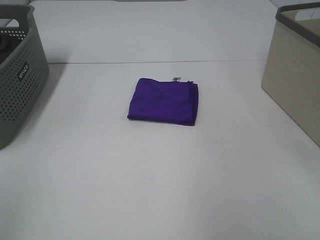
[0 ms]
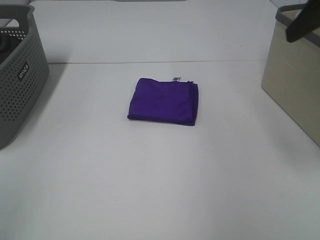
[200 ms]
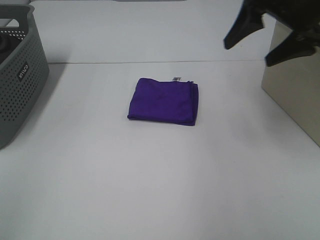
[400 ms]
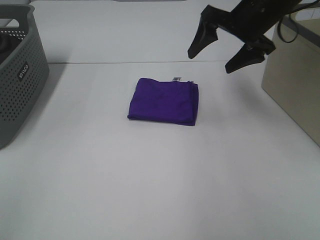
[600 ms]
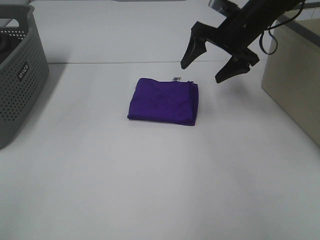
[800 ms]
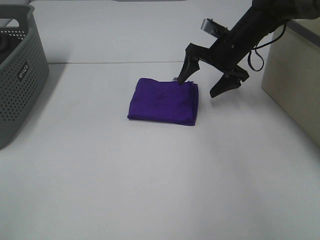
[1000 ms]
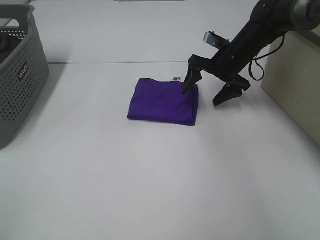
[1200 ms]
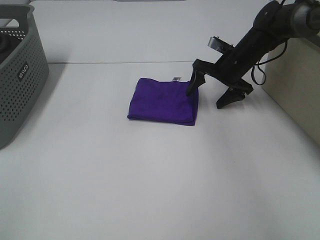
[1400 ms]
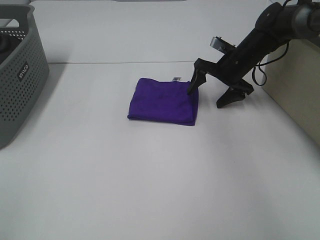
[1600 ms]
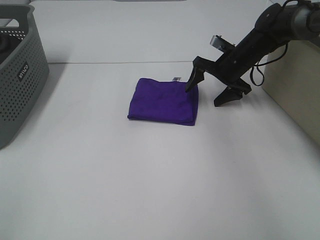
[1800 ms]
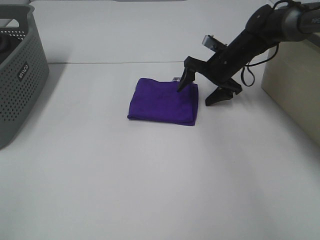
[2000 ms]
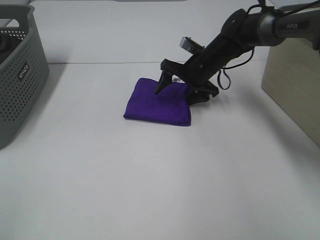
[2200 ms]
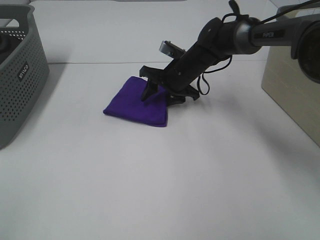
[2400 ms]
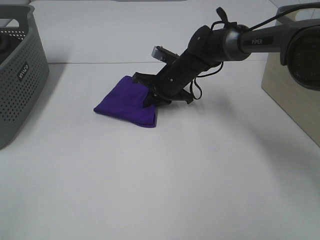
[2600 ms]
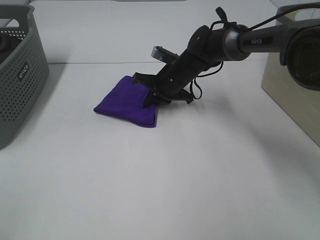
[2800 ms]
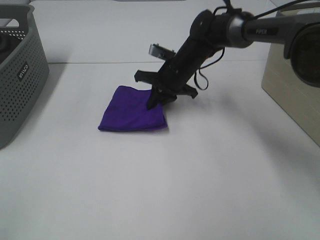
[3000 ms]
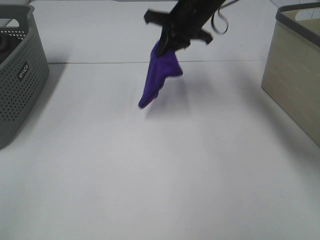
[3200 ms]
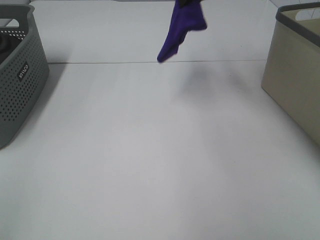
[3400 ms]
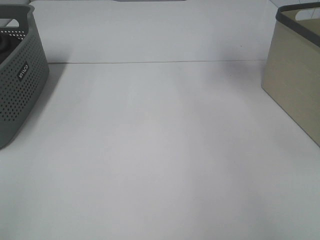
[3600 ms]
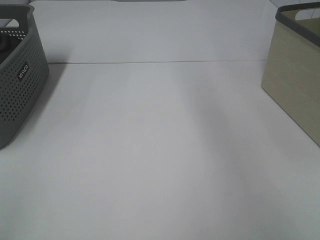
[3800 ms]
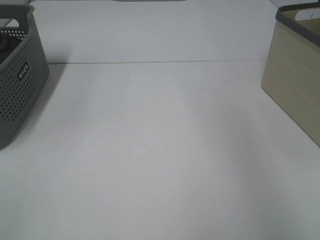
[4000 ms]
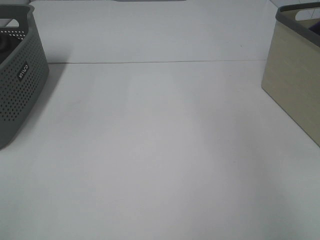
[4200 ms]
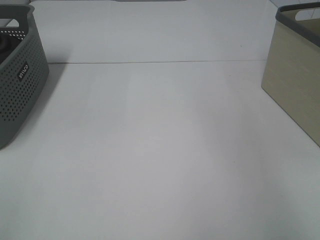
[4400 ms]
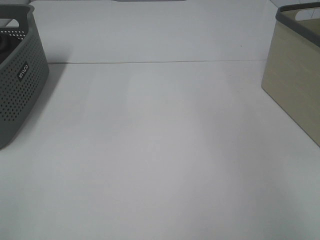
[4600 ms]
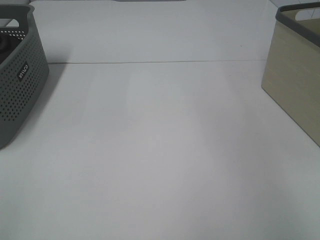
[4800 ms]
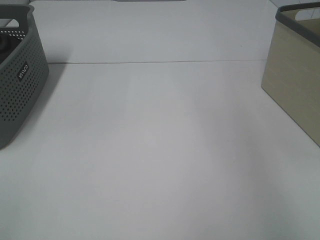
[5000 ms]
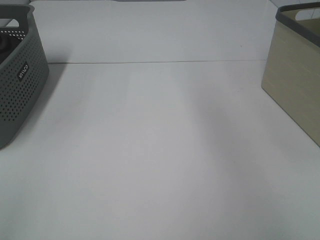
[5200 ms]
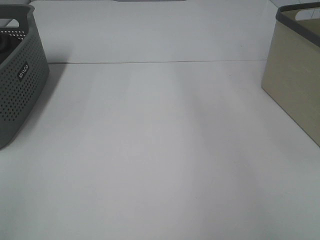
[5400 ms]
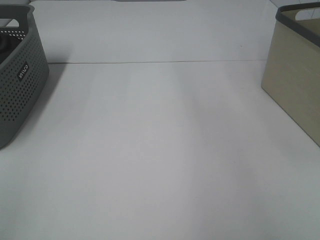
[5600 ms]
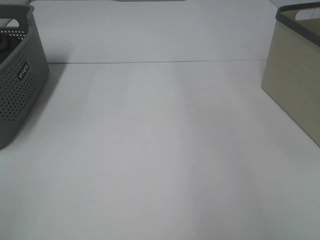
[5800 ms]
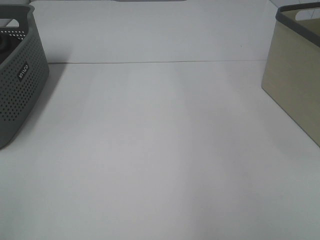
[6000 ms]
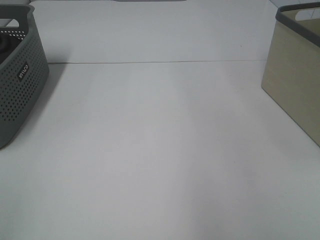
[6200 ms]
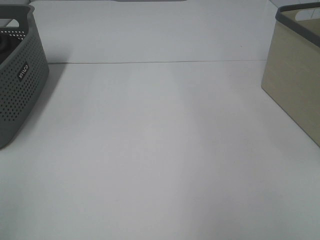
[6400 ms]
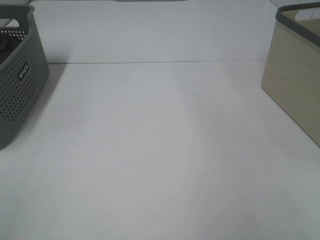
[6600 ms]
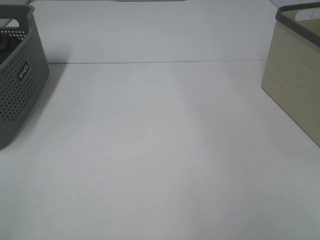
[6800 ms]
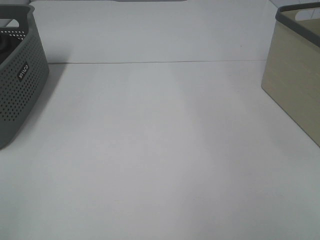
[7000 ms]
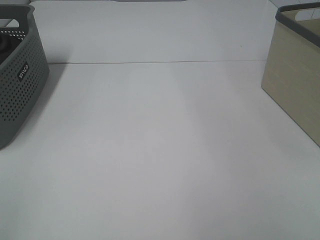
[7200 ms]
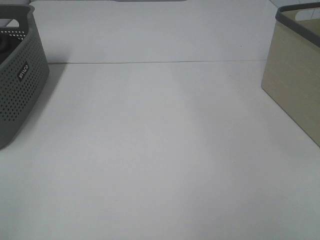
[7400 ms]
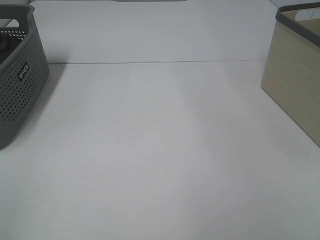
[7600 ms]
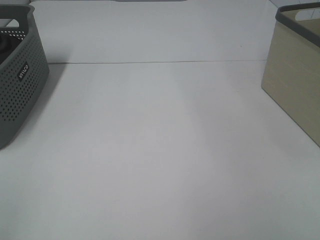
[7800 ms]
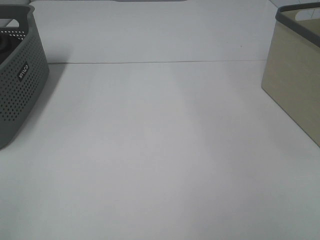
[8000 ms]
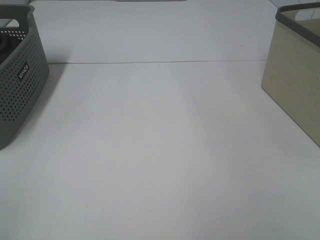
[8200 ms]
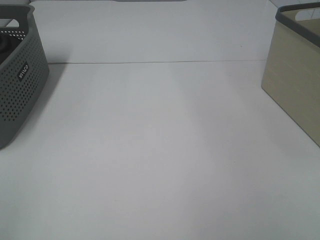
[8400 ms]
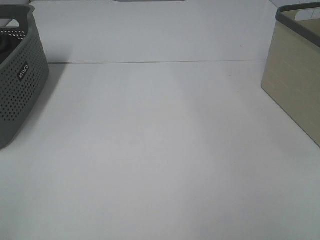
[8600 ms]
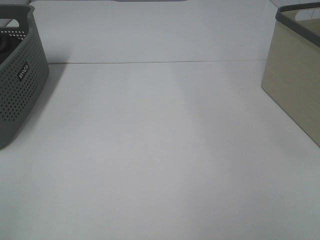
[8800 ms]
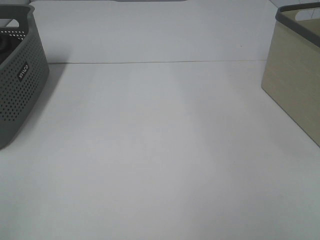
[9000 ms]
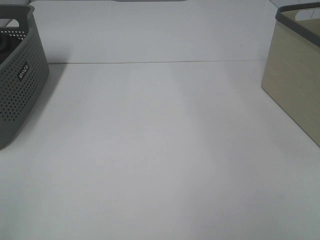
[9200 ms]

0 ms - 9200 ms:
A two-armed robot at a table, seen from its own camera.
Step, 0 ms - 2800 ms: Right hand: grab the folded purple towel.
Step, 3000 ms - 4600 ms: Right hand: place the purple towel in right basket.
0 ms - 1600 ms: The right gripper travels forward and downward by about 40 cm.
1600 ms - 3000 ms: The right gripper travels to the left by approximately 15 cm, and closes its fingers.
3000 ms - 4600 ms: The right gripper moves to the right and upward, approximately 40 cm, and opens up.
7600 ms - 9200 ms: The two grippers keep their place.

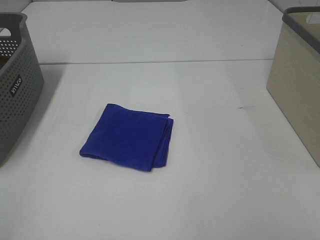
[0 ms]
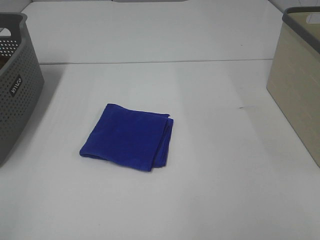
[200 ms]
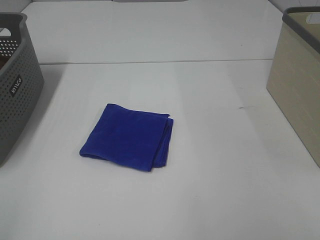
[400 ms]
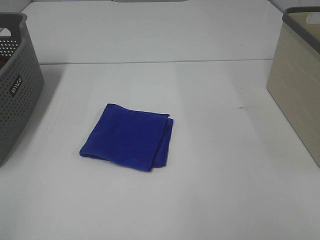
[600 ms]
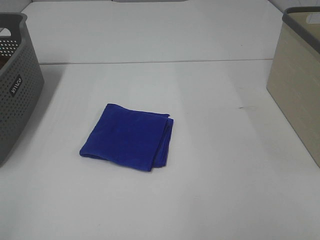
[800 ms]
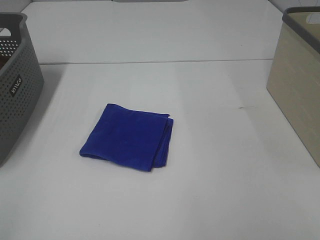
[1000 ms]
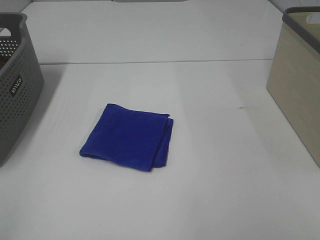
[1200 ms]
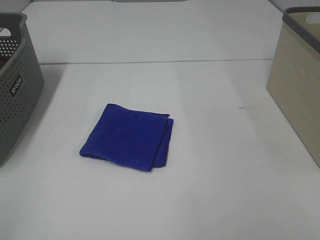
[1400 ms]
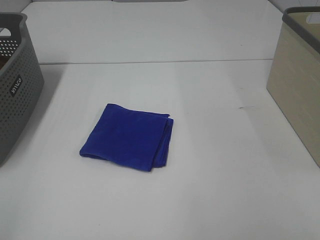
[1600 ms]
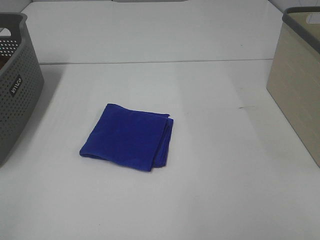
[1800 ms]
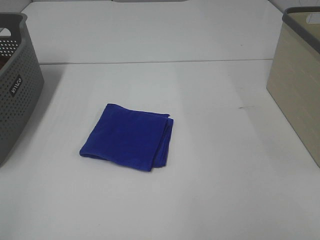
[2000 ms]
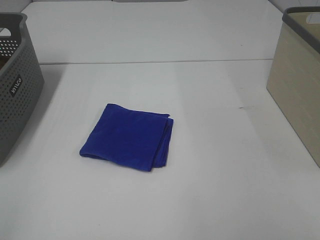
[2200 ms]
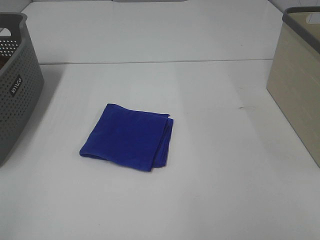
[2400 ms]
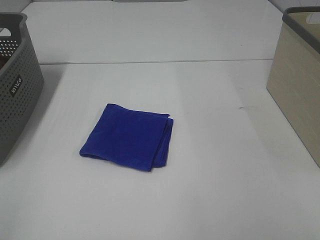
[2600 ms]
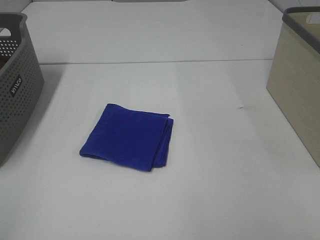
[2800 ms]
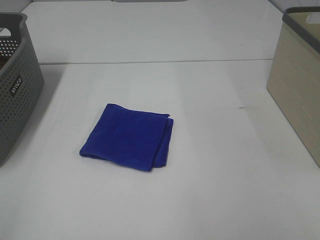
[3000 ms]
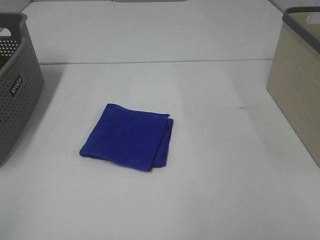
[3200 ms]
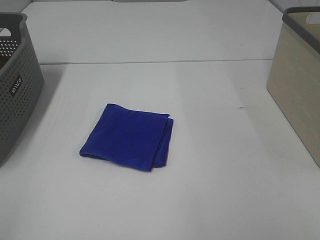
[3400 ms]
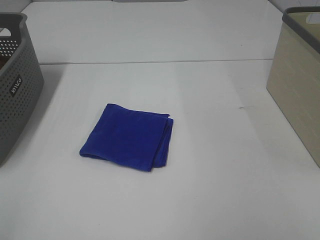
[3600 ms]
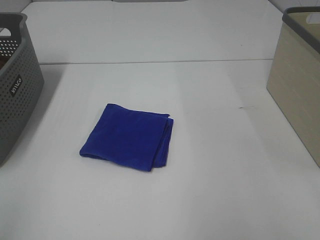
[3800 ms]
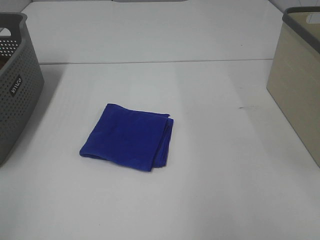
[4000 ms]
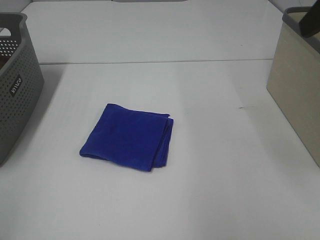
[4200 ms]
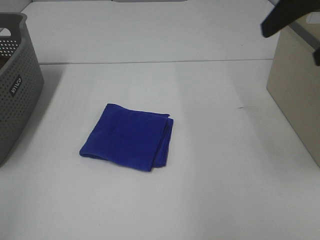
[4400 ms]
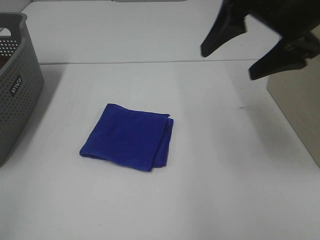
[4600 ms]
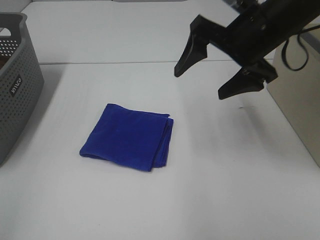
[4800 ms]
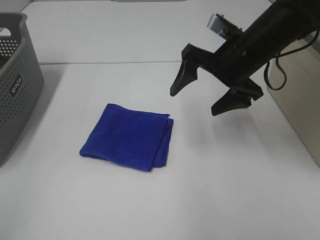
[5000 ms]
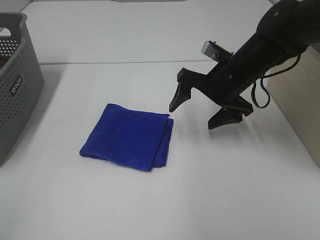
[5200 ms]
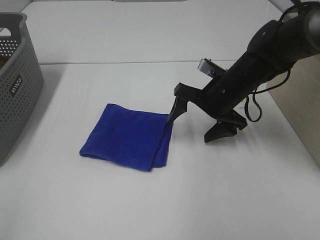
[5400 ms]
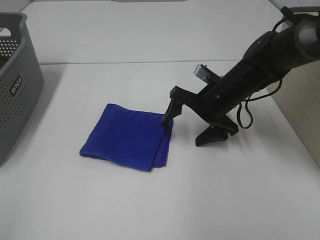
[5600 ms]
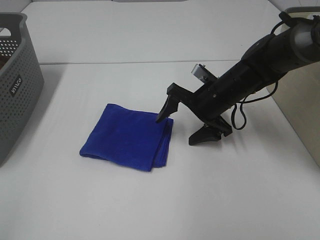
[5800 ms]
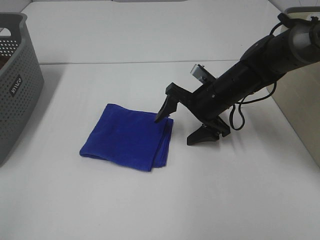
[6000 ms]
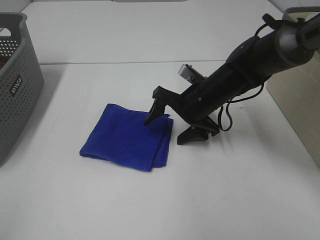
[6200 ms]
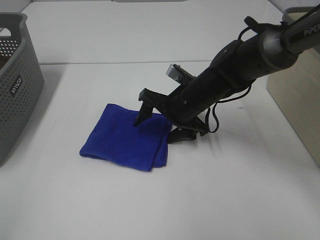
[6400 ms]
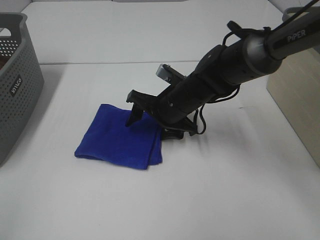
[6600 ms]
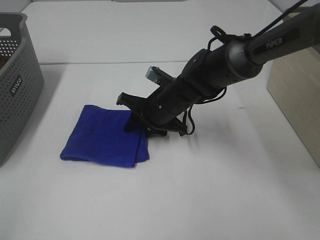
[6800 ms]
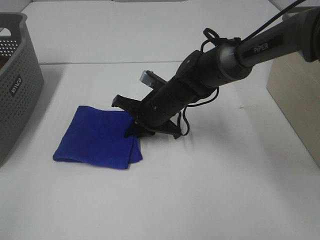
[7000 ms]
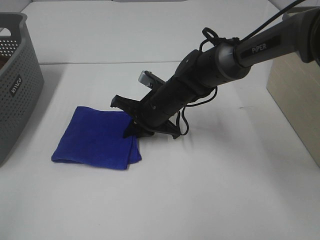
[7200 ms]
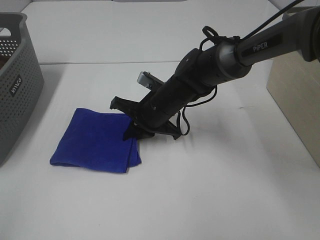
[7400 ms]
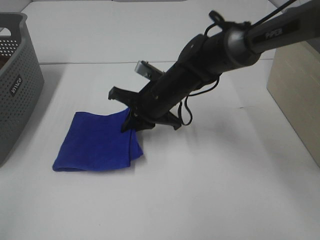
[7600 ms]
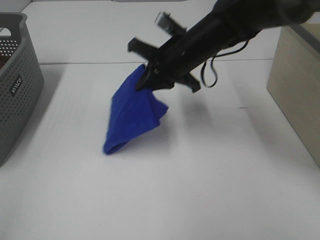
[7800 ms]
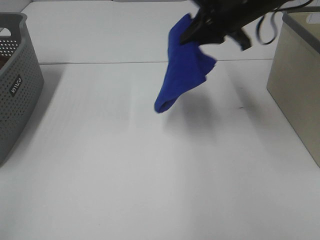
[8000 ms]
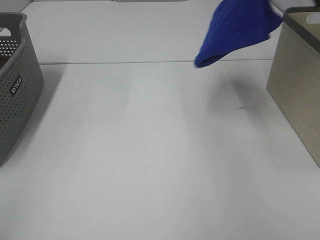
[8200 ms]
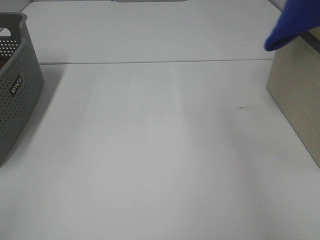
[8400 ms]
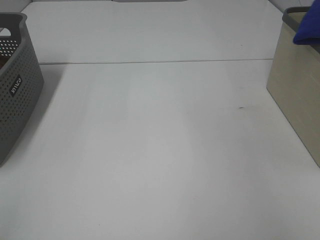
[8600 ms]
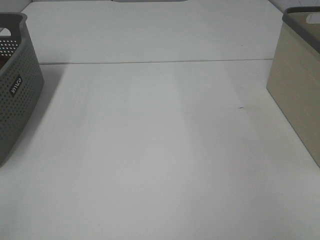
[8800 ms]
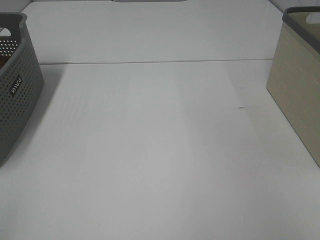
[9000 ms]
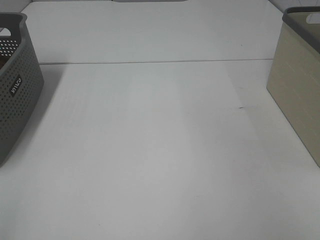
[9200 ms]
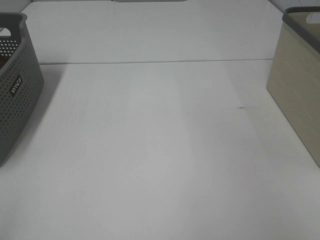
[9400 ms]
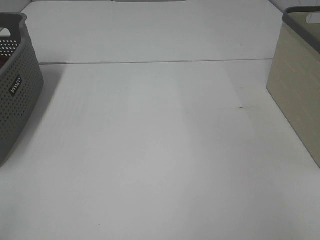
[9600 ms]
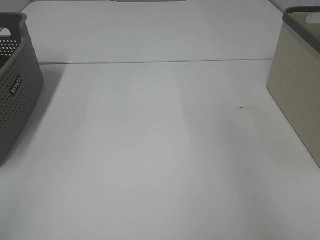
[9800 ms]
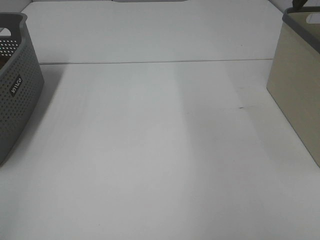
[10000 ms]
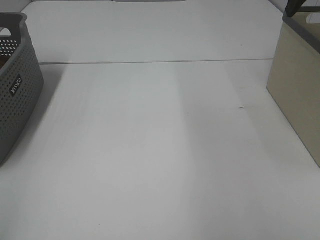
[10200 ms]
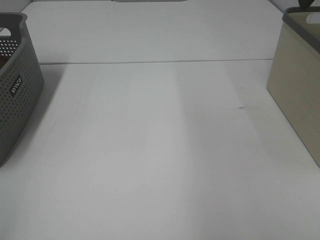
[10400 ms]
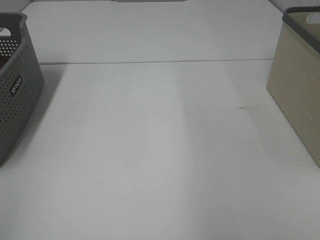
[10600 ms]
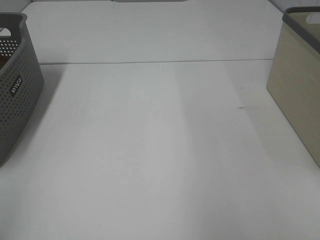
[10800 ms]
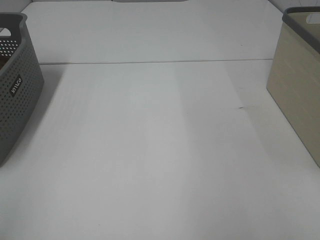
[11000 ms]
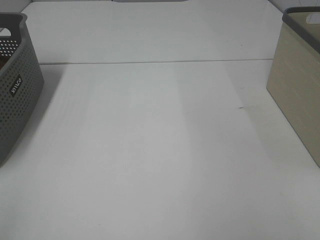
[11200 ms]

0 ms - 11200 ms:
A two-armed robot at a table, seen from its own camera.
Step, 0 ms - 7200 ms: Right hand: grab the folded blue towel.
Step, 7400 ms - 9400 ms: Right hand: place the blue towel in right basket.
0 ms - 3200 ms: The two grippers keep their place.
3200 ms - 4800 ms: The right gripper is displaced forward and to the left by roughly 35 cm.
4800 ms - 6400 ms: The right gripper travels downward and to the left by approximately 20 cm.
6400 ms - 8000 ms: The right gripper travels upward and to the right by approximately 20 cm, and closes up.
8000 ms - 9600 ms: The right gripper travels to the right by roughly 25 cm, and opens up.

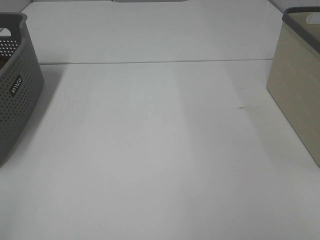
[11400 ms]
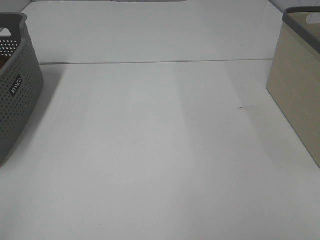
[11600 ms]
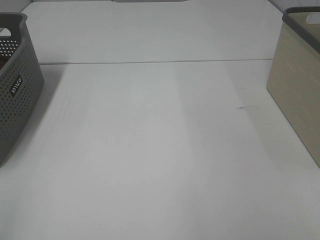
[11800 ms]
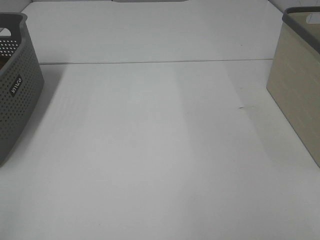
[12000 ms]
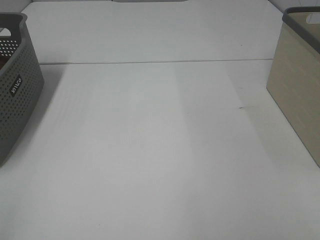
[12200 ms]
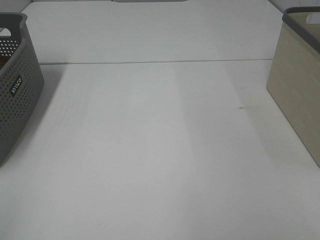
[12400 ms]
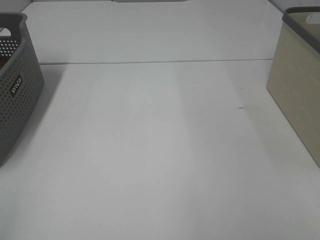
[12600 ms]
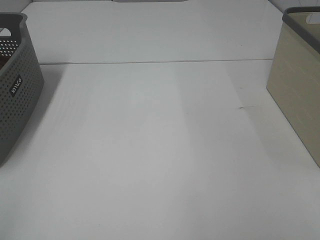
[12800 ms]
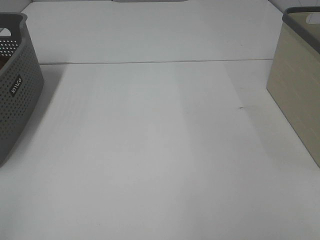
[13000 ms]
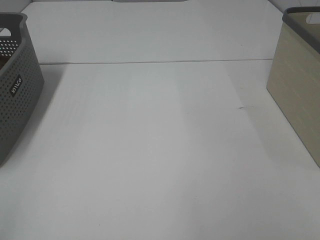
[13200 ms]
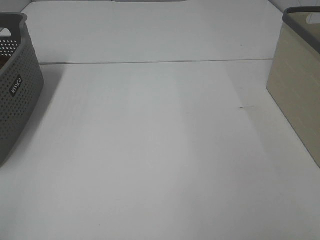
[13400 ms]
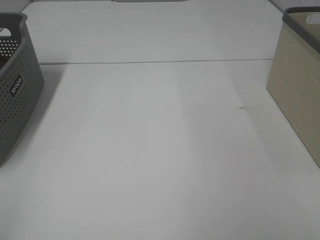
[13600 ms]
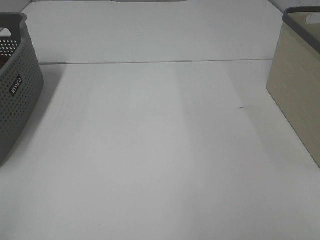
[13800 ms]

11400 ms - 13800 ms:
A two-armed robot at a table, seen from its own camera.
12600 ms - 13800 ms: Neither gripper changes place.
